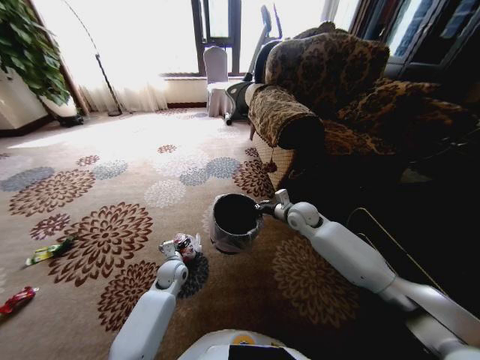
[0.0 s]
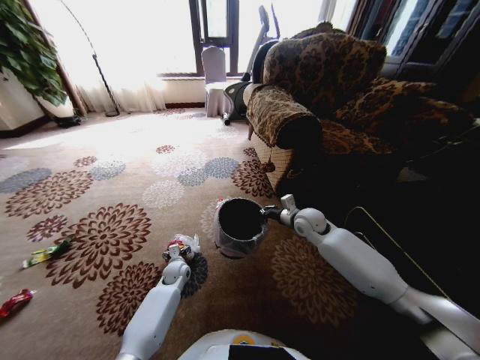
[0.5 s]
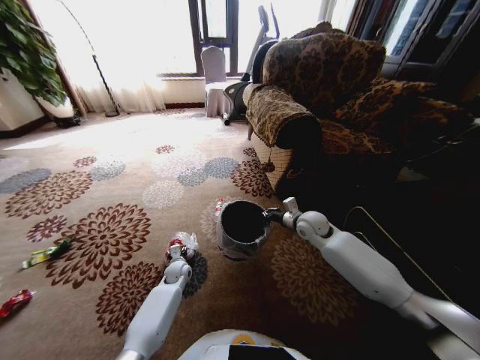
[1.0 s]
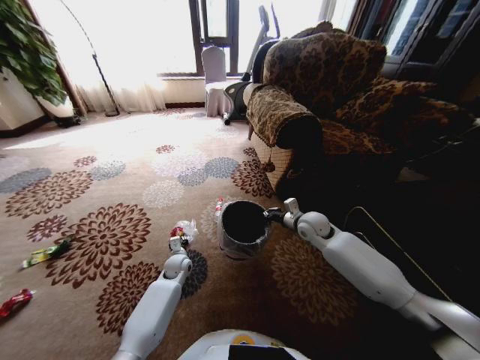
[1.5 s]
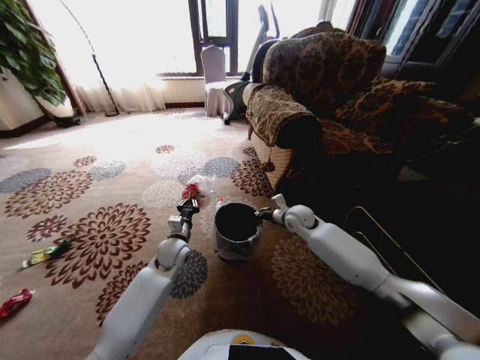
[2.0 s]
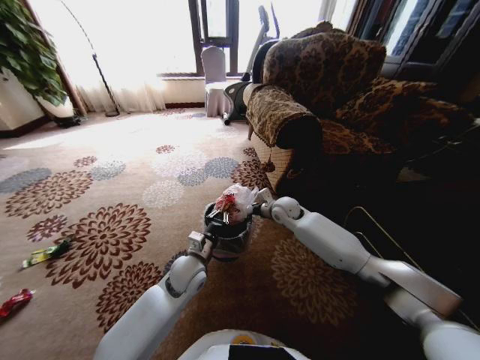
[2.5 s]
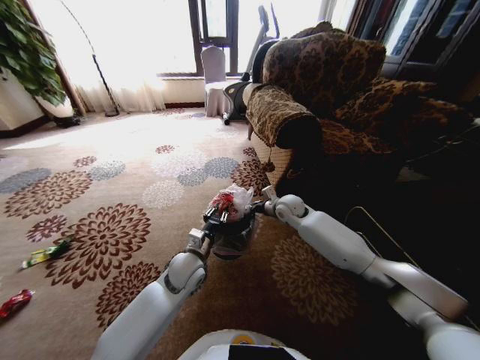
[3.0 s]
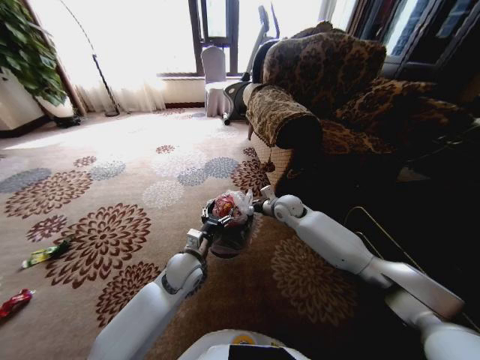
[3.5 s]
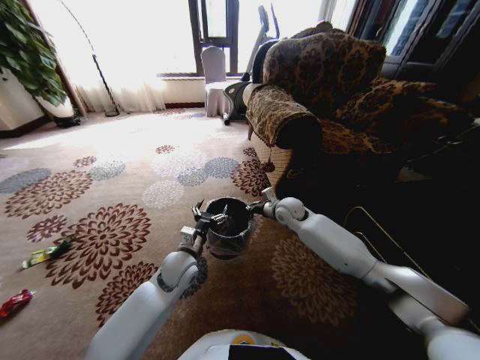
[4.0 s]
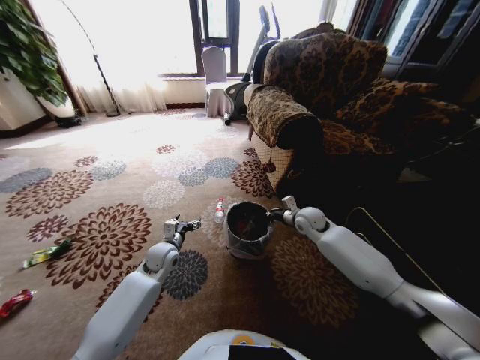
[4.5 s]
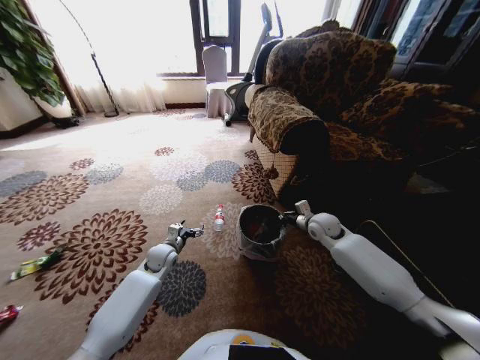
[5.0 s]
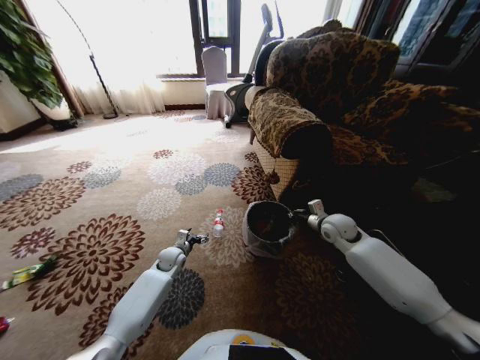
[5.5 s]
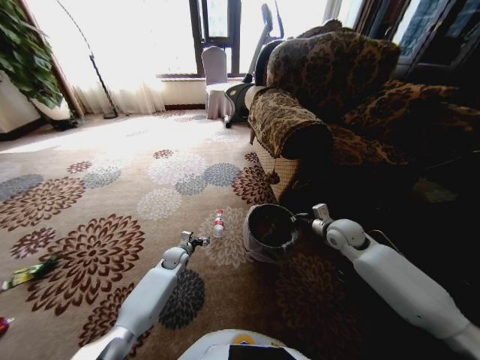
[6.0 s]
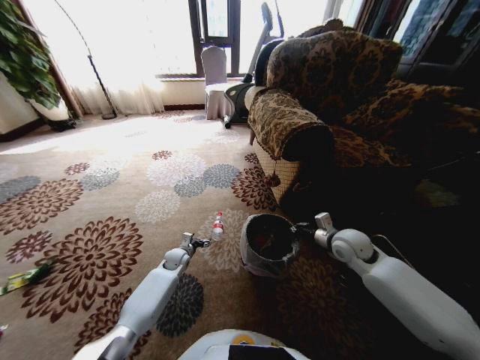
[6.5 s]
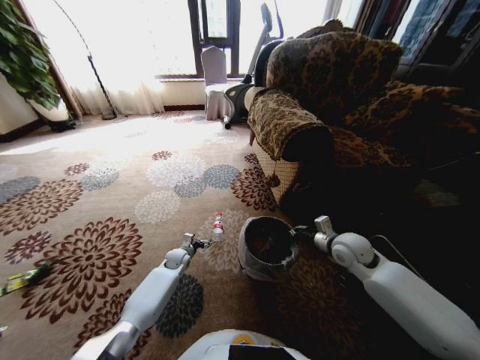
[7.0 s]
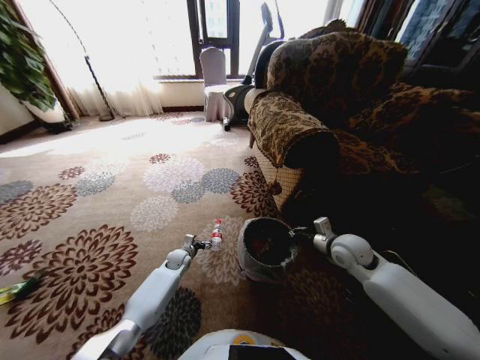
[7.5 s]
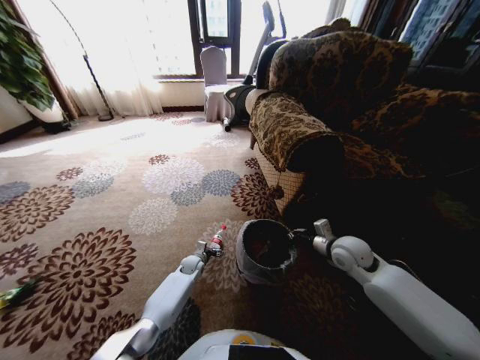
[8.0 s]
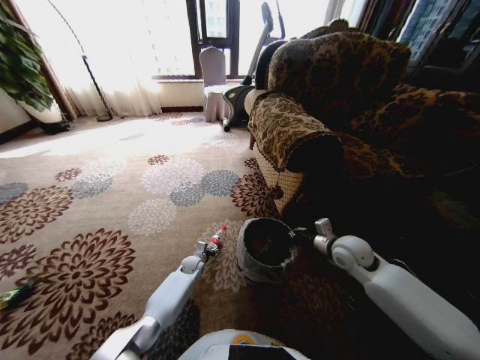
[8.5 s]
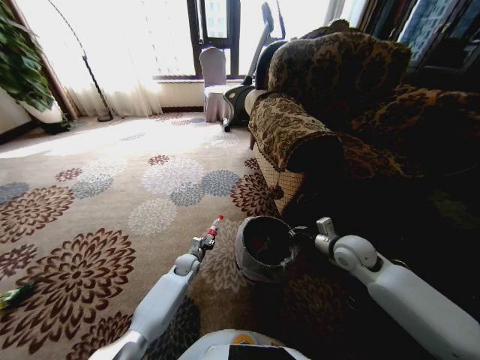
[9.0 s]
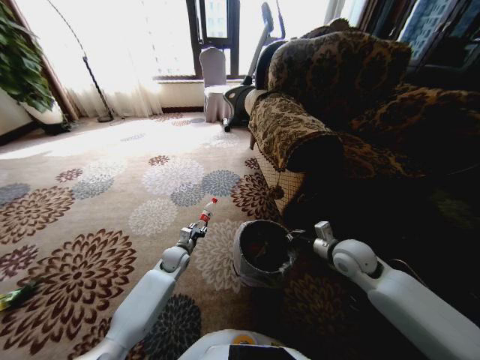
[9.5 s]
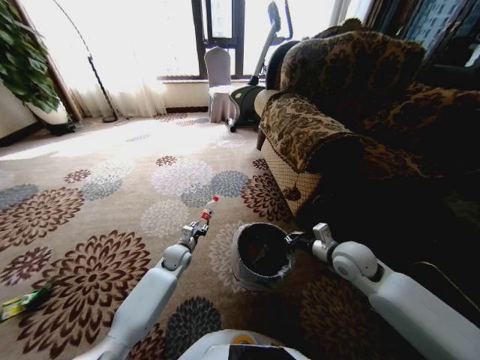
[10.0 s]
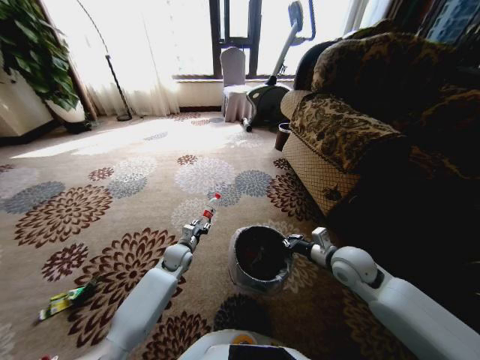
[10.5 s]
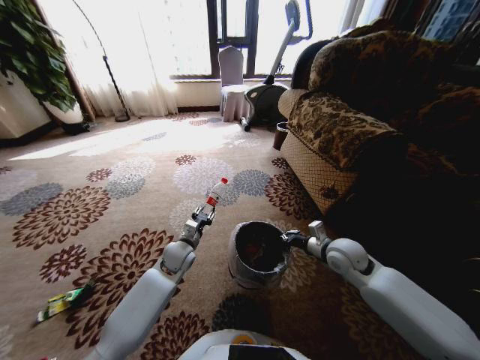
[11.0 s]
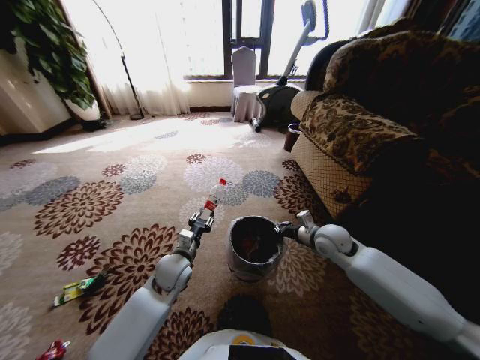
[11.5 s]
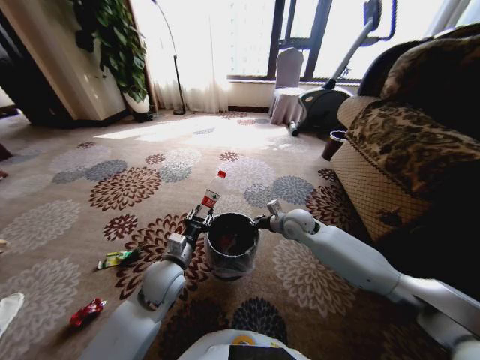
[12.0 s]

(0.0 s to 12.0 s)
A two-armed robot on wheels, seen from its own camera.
Task of the whole recording: Pick up the trash from the ground and place it into the trash bin.
0.0 s - 2.0 s: The left gripper moves upward, approximately 10 cm, and closes up.
2.0 s - 4.0 s: The left gripper travels backward by about 5 cm, and opens up.
4.0 s - 6.0 s: The right gripper is displaced to the right and backward by approximately 15 cm. Meanwhile the left gripper moves downward, forward and to the left, some 20 cm.
6.0 s - 8.0 s: The left gripper is displaced downward and to the right by approximately 10 cm. Meanwhile the right gripper travels backward by roughly 5 cm.
8.0 s - 10.0 s: The left gripper goes about 10 cm upward, and closes.
10.0 s - 12.0 s: The left gripper moves upward and backward, approximately 20 cm. Meanwhile the right gripper moves forward and to the left, about 15 cm.

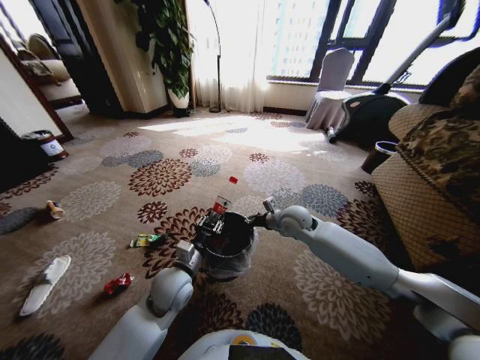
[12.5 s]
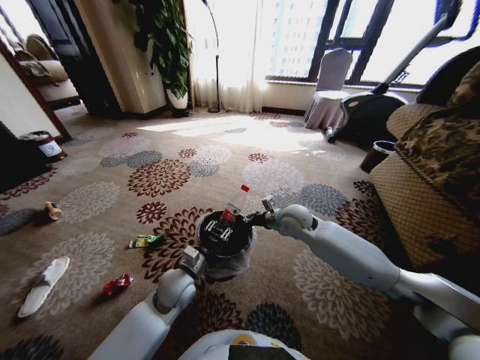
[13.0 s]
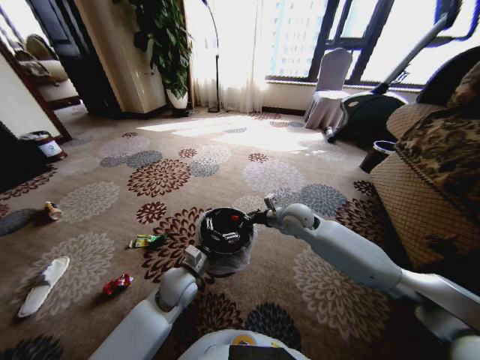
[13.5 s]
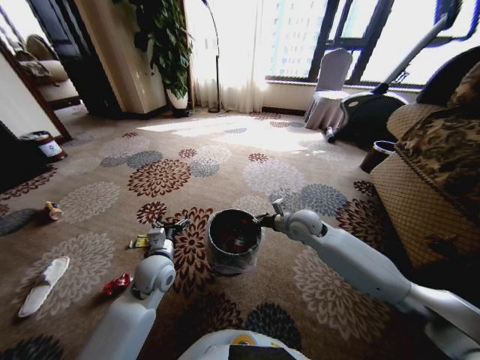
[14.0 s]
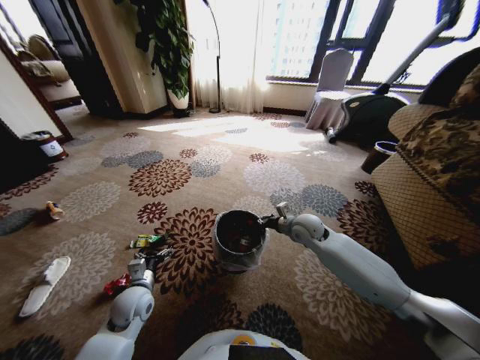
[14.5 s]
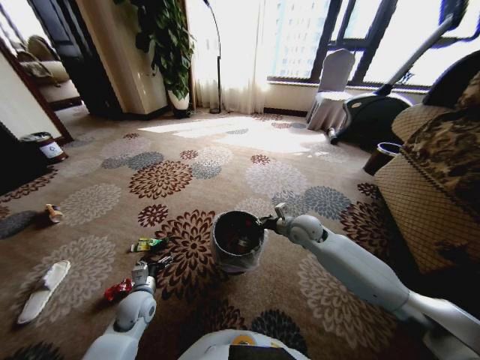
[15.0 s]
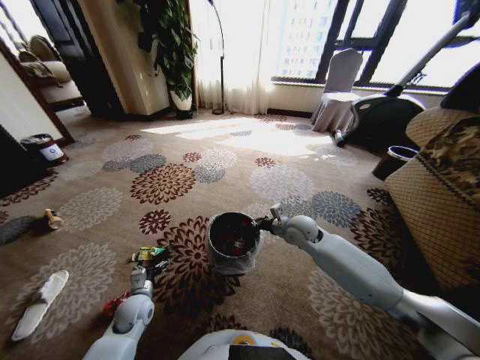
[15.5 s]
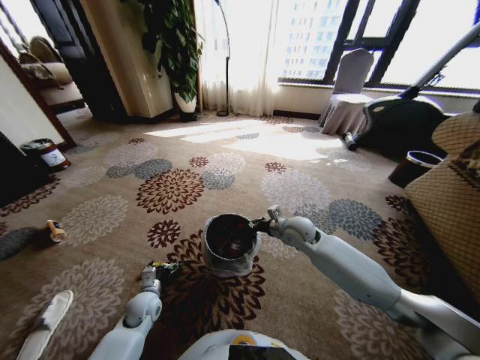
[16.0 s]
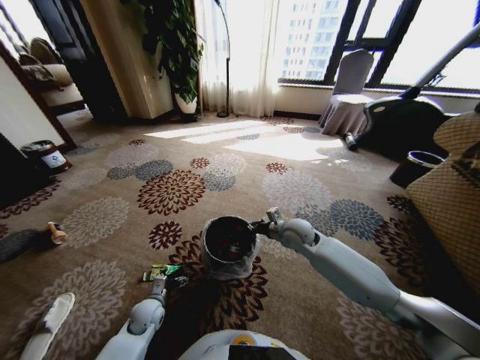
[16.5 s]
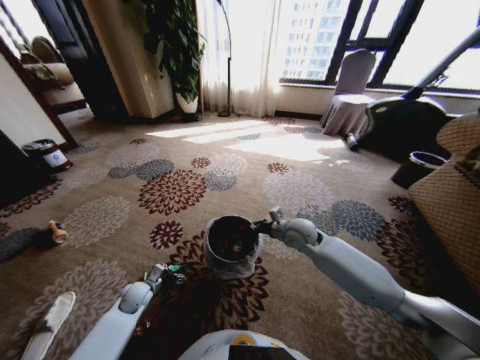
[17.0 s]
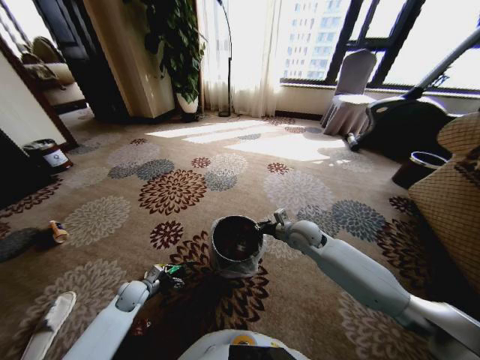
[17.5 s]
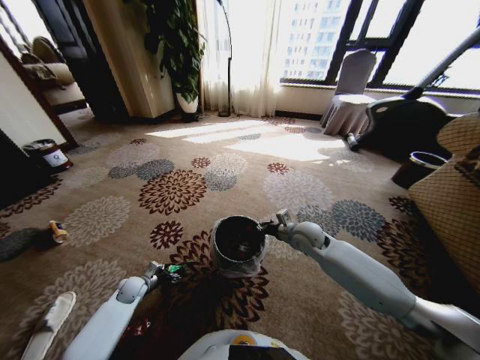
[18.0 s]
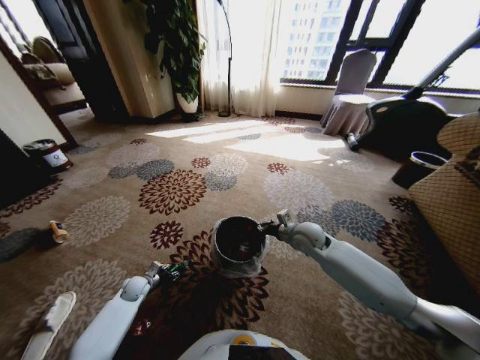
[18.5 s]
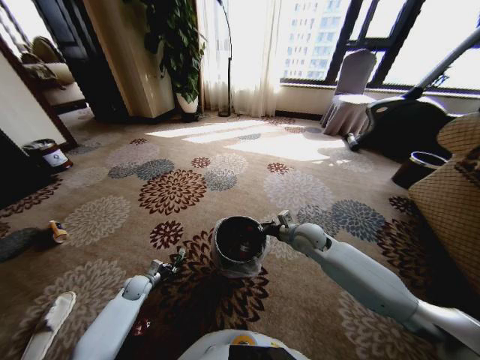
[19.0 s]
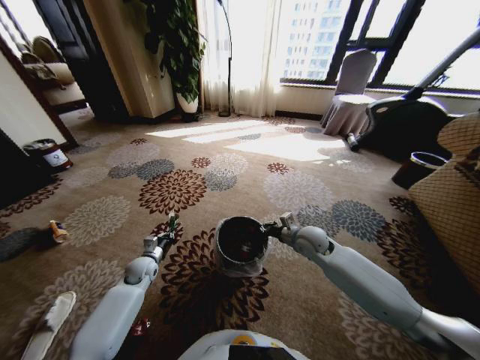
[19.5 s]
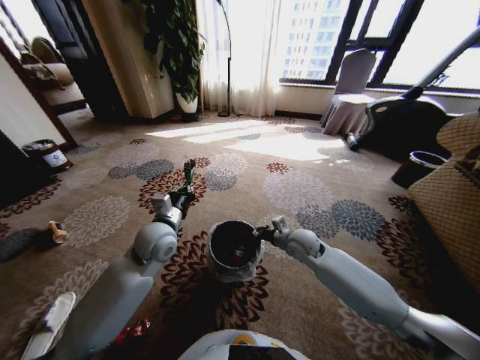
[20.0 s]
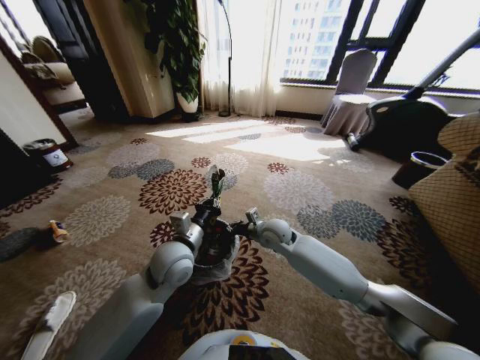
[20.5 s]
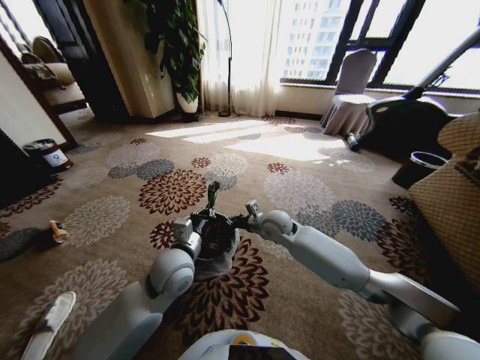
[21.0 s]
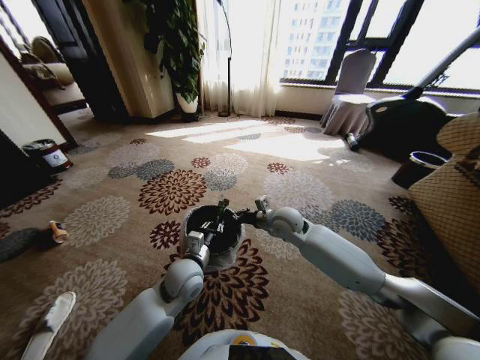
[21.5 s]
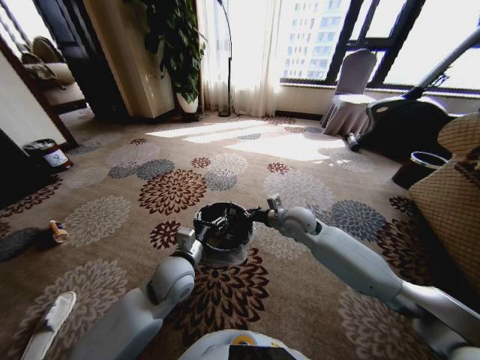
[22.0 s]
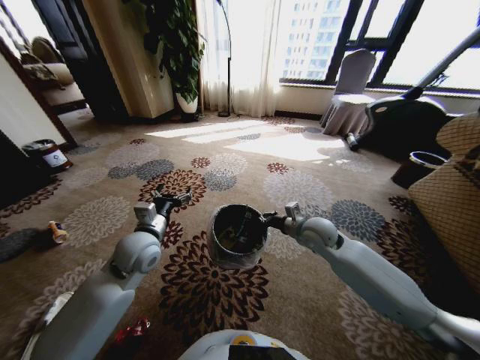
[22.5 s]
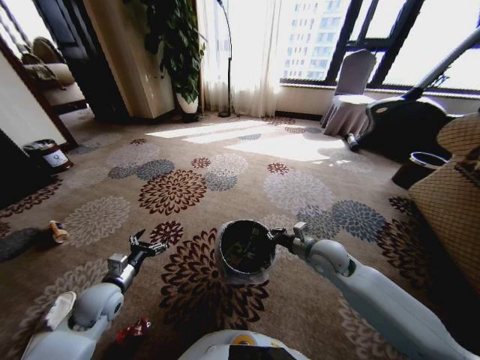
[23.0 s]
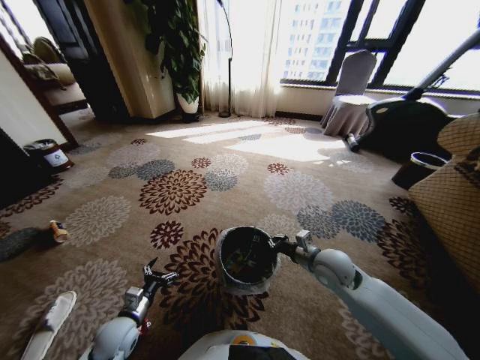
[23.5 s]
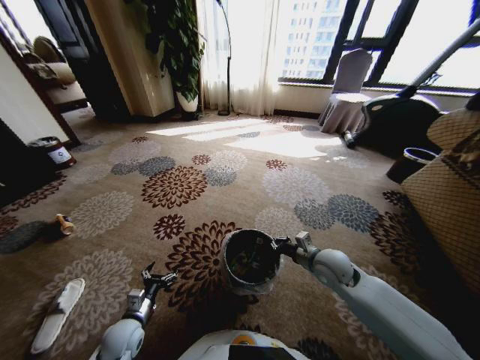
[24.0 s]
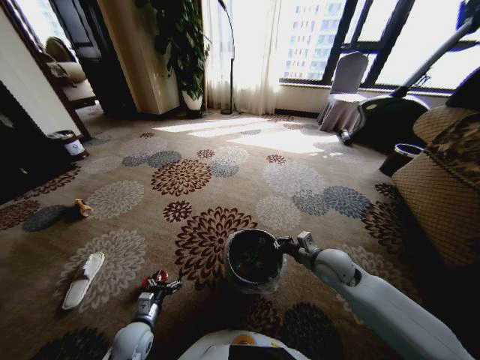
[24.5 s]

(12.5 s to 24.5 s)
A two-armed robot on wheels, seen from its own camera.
Task of the whole recording: Pick up the trash from the ground and place it into the trash bin.
12.5 s - 14.5 s: The right gripper changes place by approximately 5 cm. The left gripper shifts approximately 15 cm to the left and downward, and opens up.
14.5 s - 16.5 s: The left gripper heads downward, covering roughly 10 cm.
16.5 s - 18.5 s: The left gripper heads to the left and forward, covering some 15 cm, and closes up.
18.5 s - 20.5 s: The right gripper heads to the left, covering some 10 cm. Meanwhile the left gripper heads upward and to the right, covering about 40 cm, and closes its fingers.
20.5 s - 22.5 s: The left gripper goes about 10 cm to the left, and opens. The right gripper goes roughly 10 cm to the right.
22.5 s - 24.5 s: The left gripper is displaced downward and backward by about 30 cm; the right gripper moves backward and downward, roughly 10 cm.

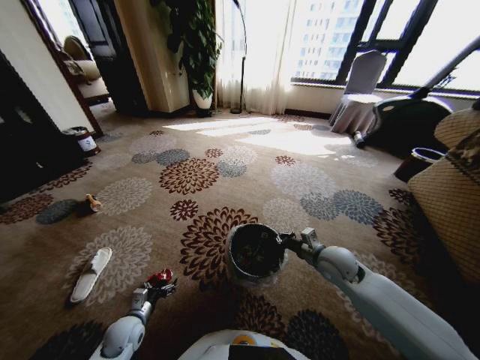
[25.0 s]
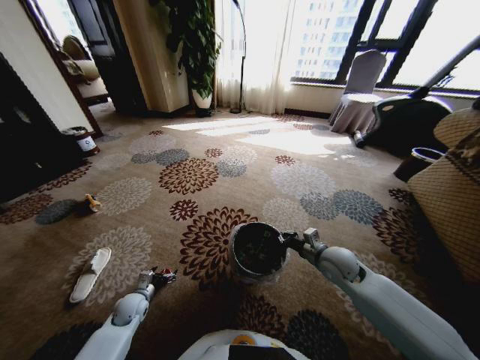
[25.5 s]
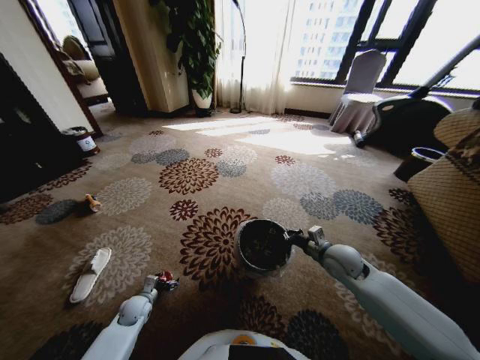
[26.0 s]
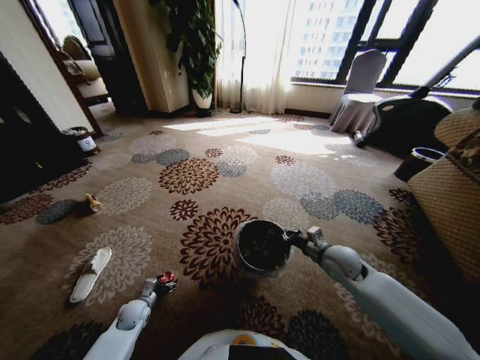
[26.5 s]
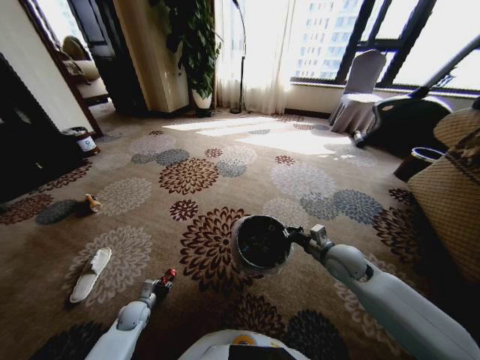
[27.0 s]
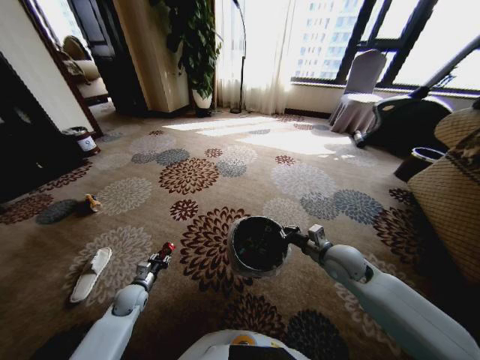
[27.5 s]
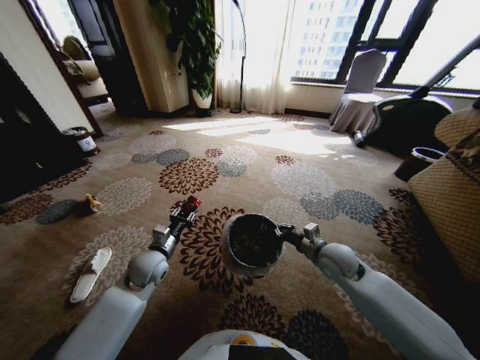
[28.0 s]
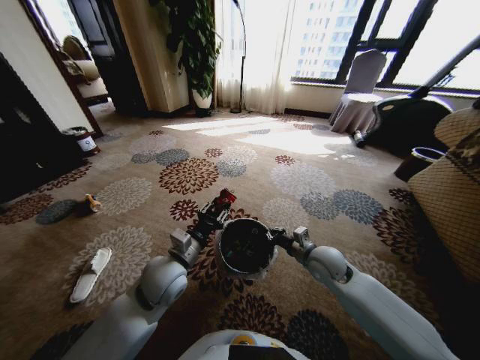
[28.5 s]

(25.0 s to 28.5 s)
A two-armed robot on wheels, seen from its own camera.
Task of the whole recording: Pick up the trash from the ground and place it into the trash bin.
25.0 s - 27.0 s: The left gripper shifts some 10 cm downward and forward, and closes.
27.0 s - 28.5 s: The right gripper shifts roughly 5 cm to the left; the left gripper heads upward and to the right, covering about 35 cm.
